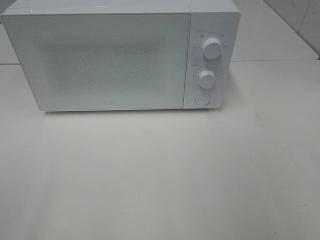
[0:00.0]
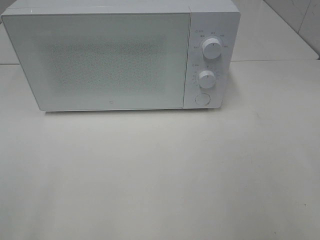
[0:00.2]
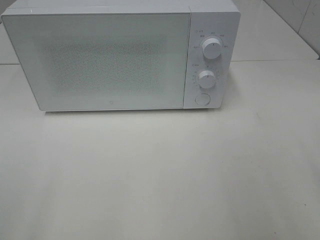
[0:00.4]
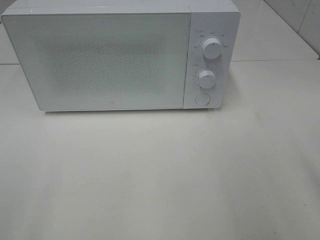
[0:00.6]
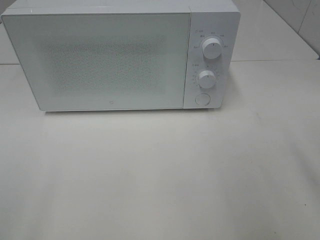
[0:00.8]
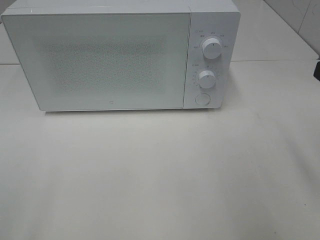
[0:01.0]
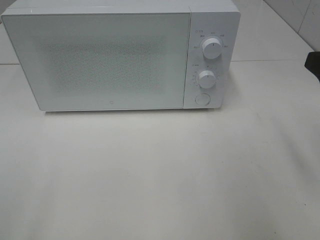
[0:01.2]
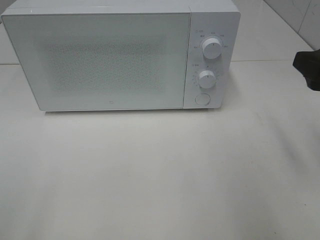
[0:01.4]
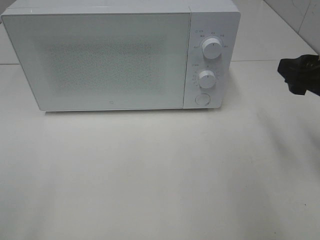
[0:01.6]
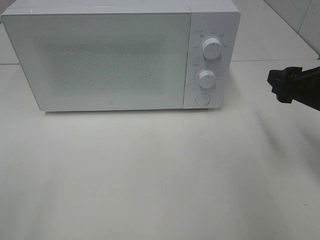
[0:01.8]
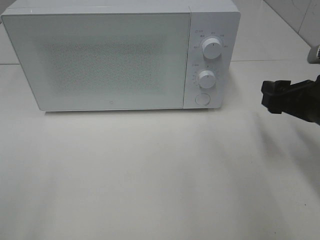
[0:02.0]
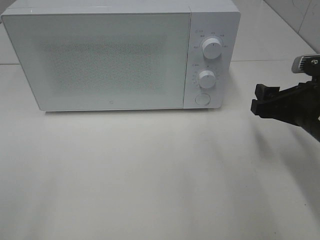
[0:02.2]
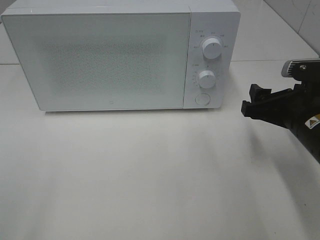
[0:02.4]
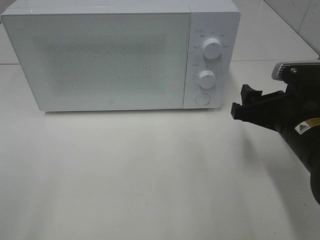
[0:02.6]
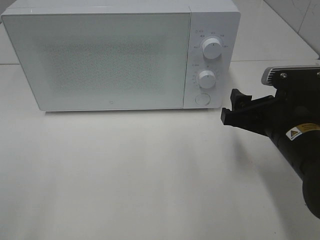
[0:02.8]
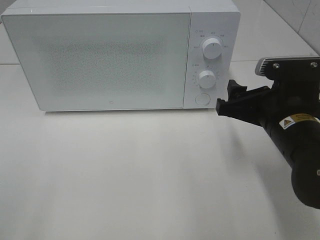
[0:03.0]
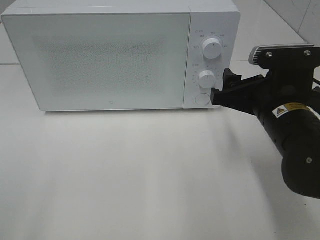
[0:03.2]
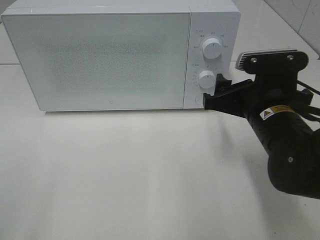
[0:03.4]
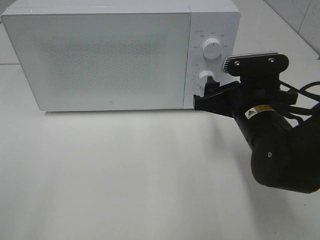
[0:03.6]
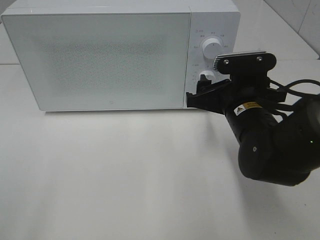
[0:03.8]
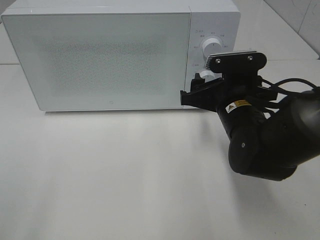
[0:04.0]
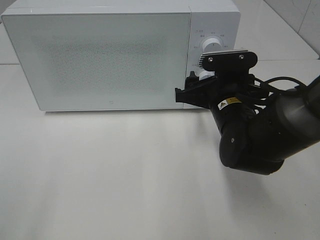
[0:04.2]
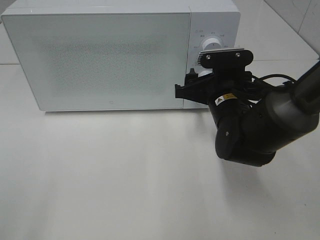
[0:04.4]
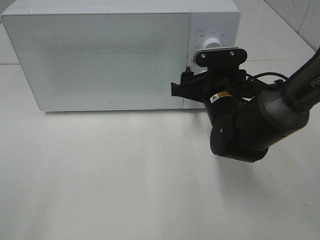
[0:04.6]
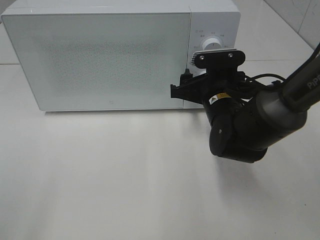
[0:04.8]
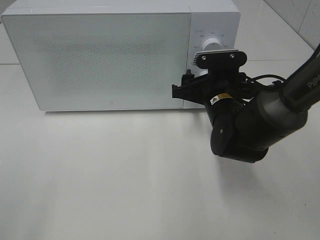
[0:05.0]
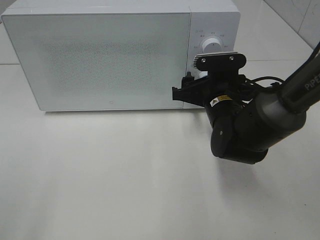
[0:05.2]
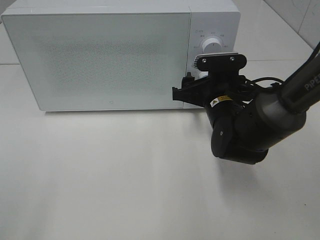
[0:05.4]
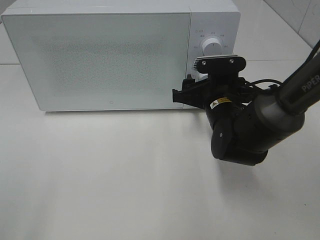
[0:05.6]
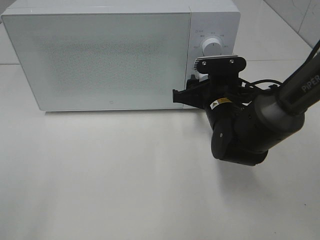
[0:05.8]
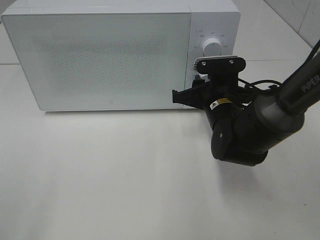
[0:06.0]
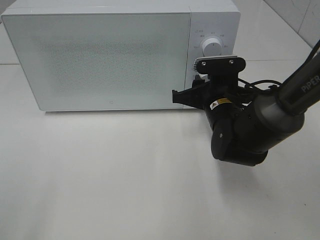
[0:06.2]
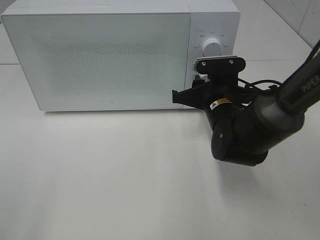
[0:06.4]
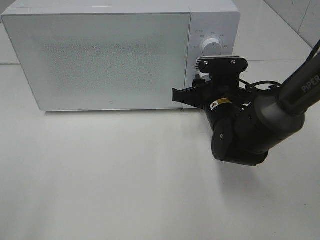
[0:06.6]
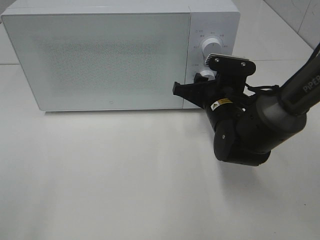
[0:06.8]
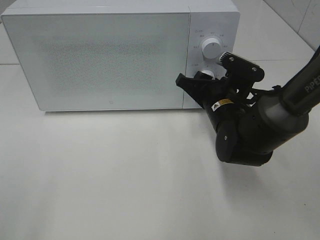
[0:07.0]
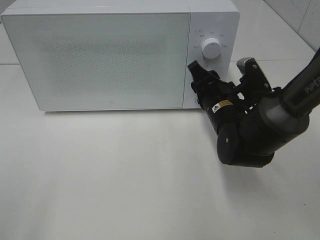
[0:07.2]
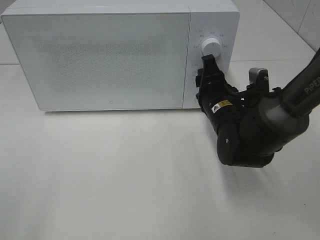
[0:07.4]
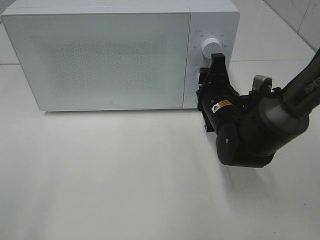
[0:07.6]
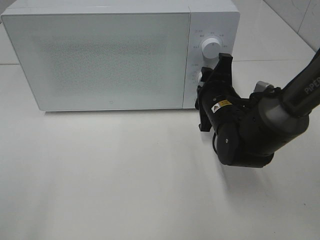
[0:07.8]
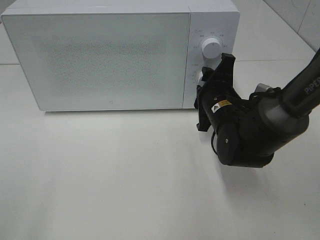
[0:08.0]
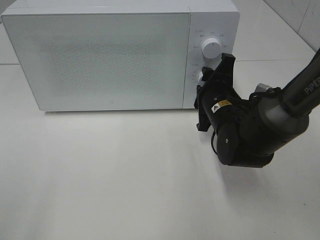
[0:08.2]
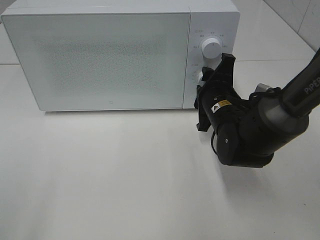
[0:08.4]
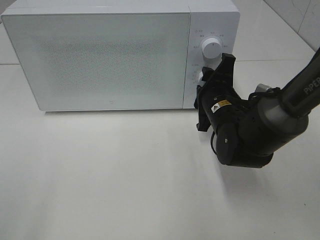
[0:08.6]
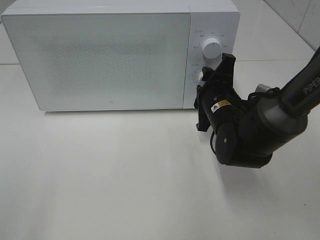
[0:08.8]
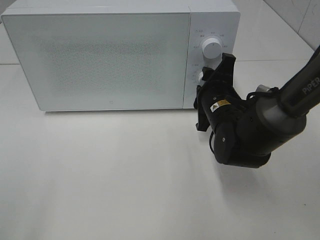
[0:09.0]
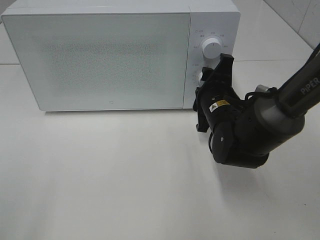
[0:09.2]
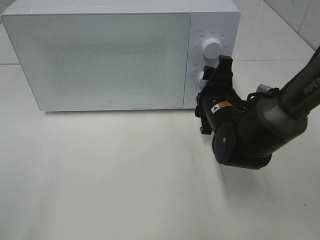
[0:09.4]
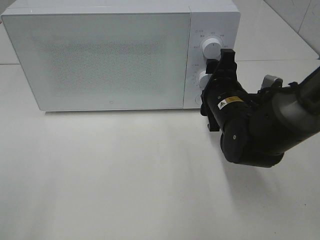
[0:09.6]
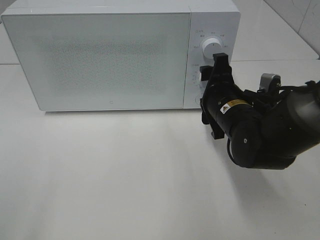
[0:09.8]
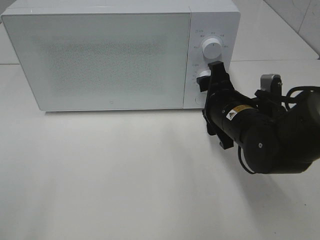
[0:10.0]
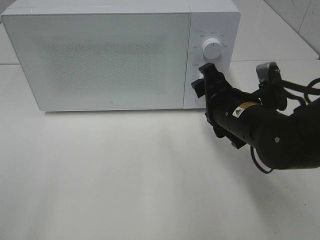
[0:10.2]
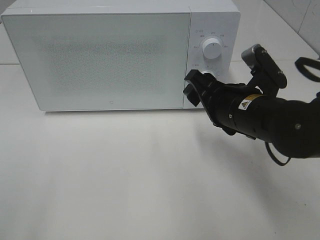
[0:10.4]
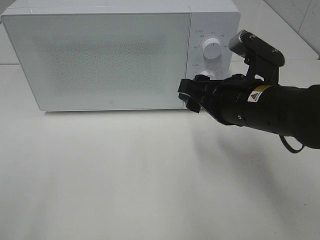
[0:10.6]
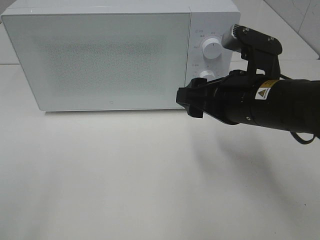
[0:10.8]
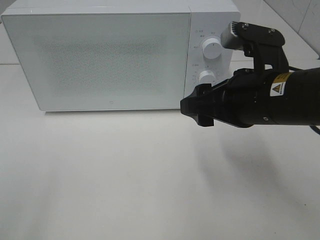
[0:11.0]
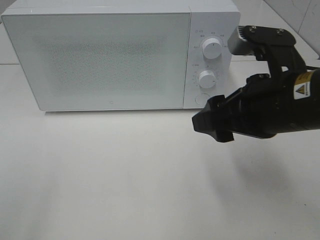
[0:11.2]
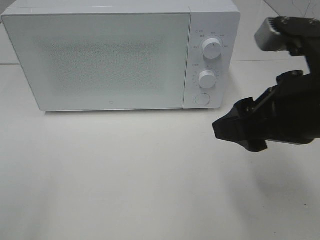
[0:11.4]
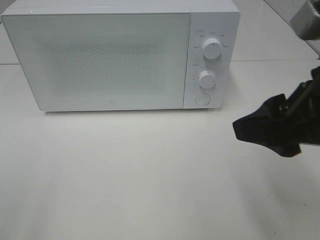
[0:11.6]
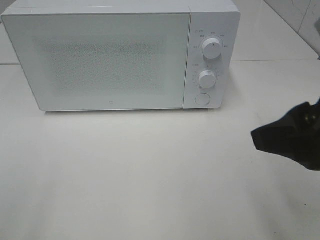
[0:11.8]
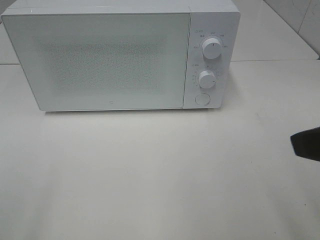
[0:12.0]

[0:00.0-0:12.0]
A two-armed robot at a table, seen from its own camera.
Task of the whole recording: Heat the burger.
Step, 0:00.0 to 0:09.4: Right hand: twist timer button.
0:00.0 to 0:01.6: The right gripper shifts approximately 20 cm forward and downward.
0:01.6 to 0:03.0: The right gripper travels to the left and downward by about 10 cm.
0:03.0 to 0:04.4: The right gripper travels forward and to the left by some 10 cm.
0:04.4 to 0:06.0: The right gripper closes up.
0:07.6 to 0:09.0: The grippers move only a little.
0:09.0 to 0:10.4: The right gripper travels backward and upward by approximately 10 cm.
0:10.4 to 0:12.0: The right gripper travels backward, upward and to the right by approximately 20 cm.

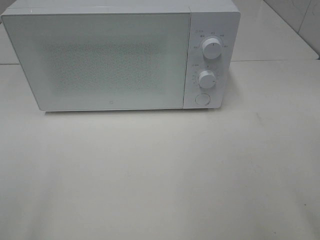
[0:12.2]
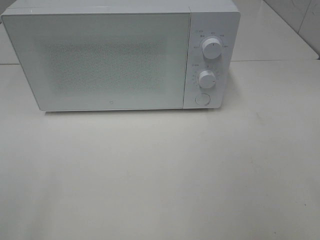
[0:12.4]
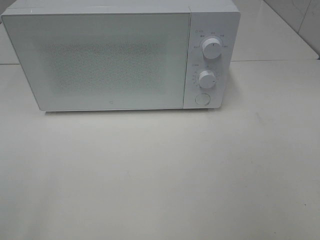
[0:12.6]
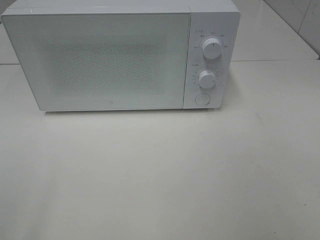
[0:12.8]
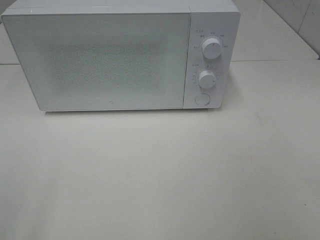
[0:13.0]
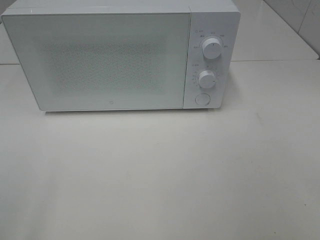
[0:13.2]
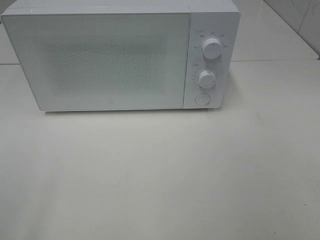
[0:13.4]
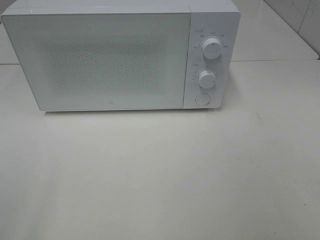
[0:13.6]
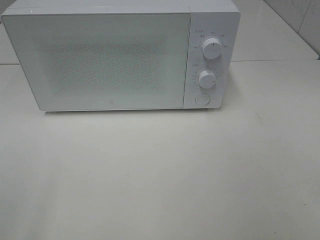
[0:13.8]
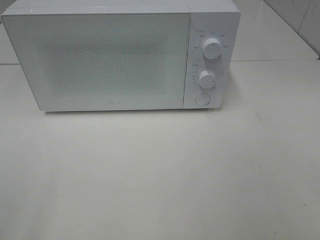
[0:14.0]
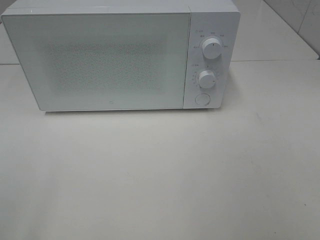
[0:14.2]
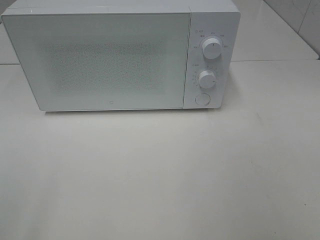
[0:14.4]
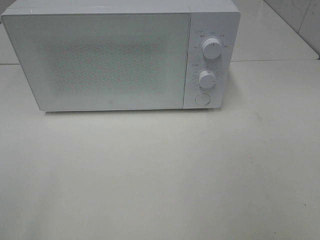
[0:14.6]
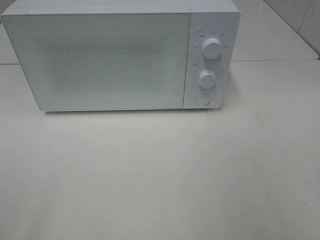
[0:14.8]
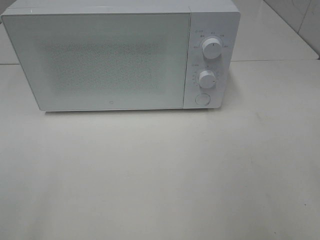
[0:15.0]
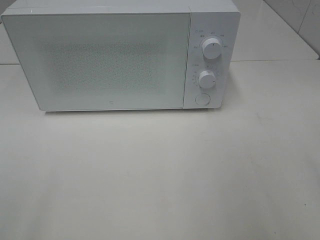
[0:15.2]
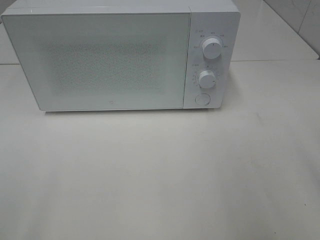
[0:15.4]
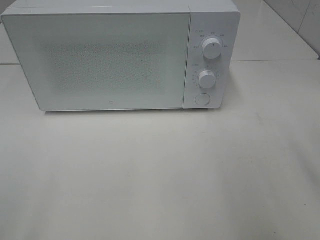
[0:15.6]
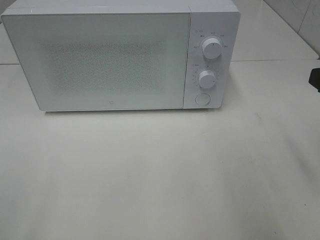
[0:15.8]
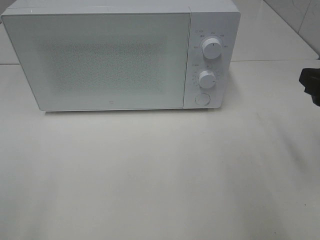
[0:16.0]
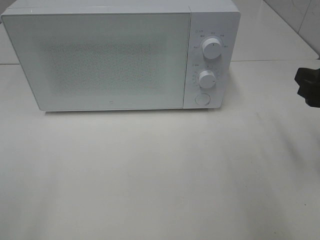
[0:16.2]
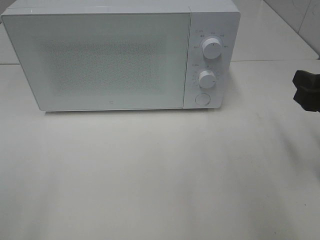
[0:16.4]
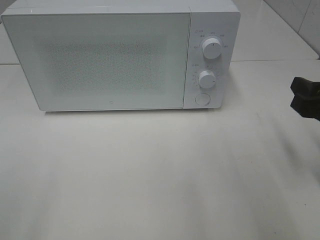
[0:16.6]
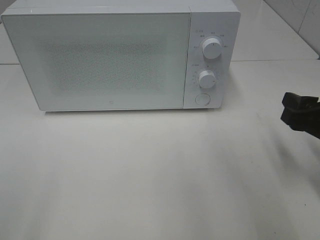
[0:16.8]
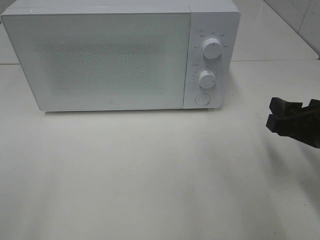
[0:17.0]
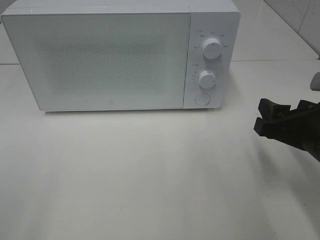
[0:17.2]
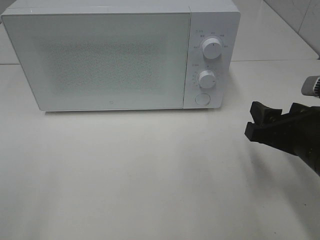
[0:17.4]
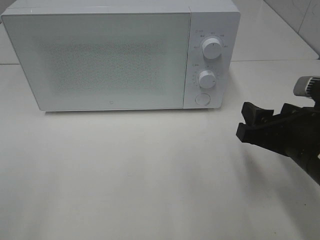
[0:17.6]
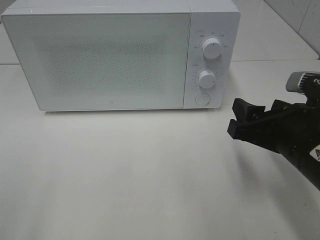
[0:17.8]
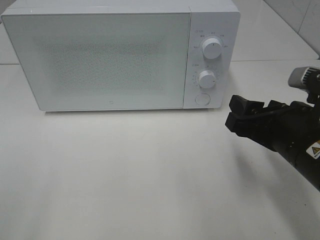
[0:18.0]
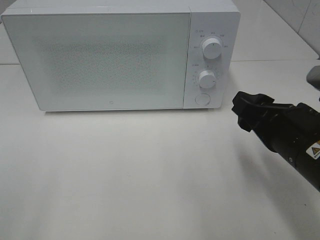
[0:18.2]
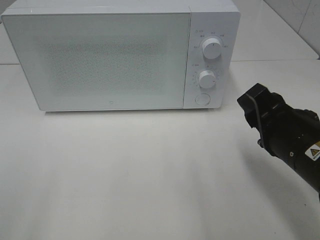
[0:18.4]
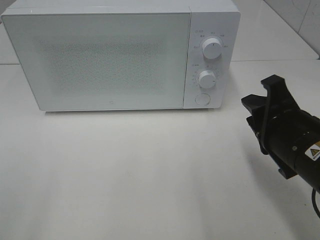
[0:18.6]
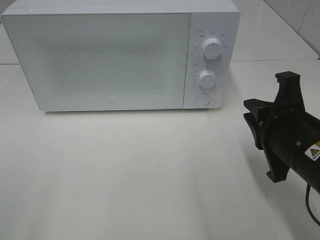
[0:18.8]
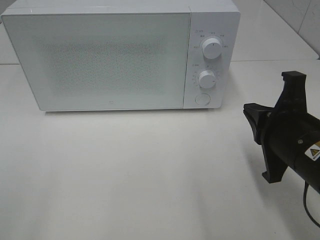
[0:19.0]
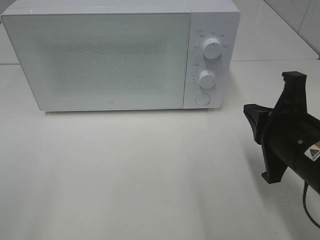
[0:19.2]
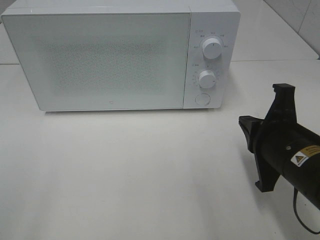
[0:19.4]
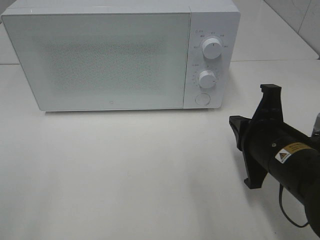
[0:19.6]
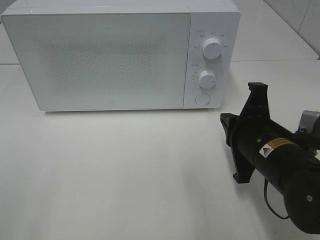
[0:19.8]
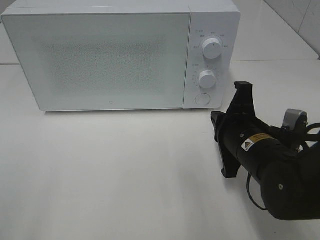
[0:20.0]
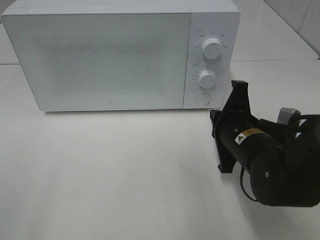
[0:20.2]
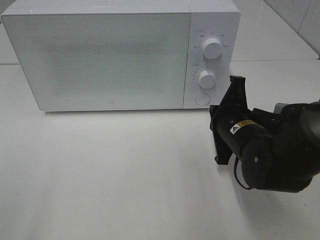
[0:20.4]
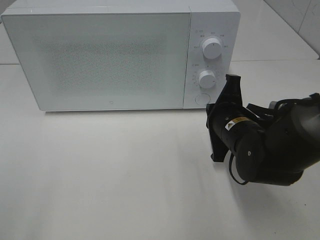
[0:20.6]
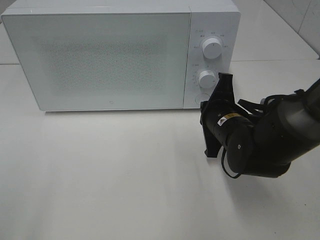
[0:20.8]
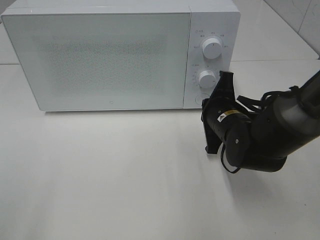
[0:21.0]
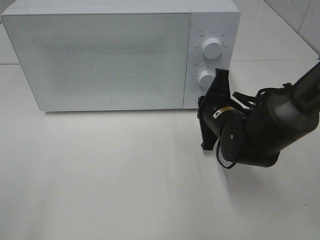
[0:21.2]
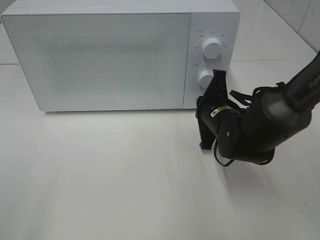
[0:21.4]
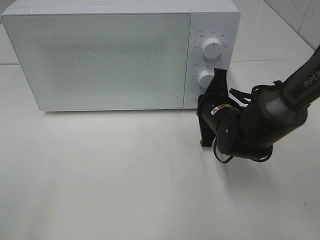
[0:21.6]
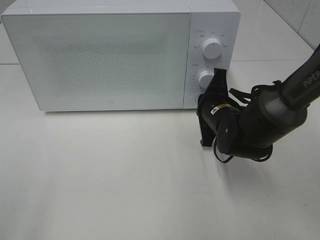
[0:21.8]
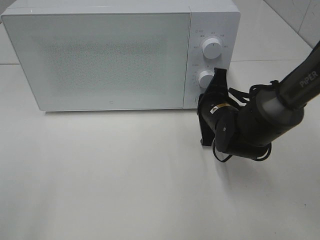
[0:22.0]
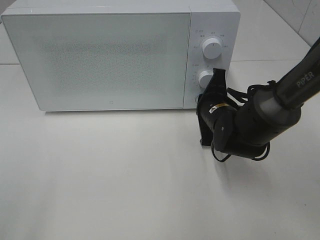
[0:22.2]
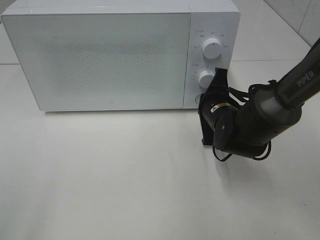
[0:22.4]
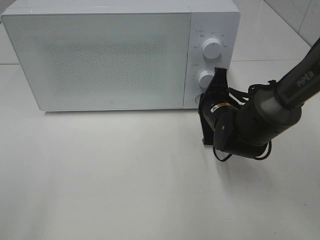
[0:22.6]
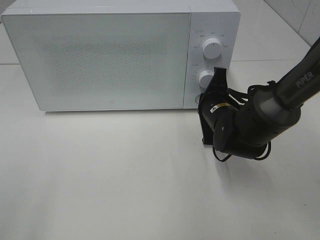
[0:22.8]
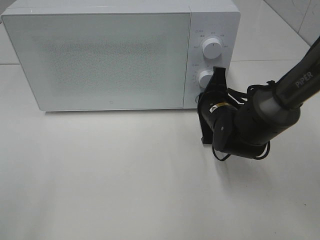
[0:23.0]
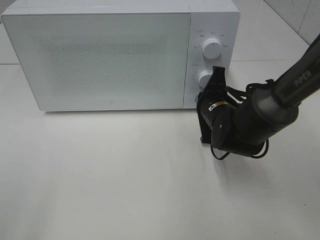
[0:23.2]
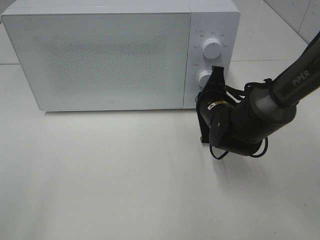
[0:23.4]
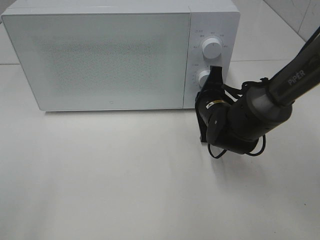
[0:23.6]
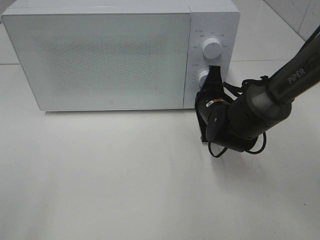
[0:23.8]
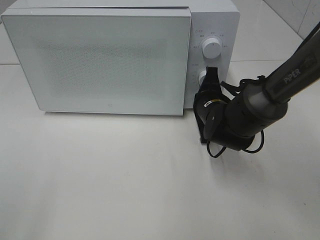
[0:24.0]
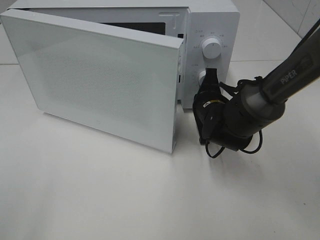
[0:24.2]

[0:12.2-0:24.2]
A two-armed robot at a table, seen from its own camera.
Task of the whole recording: Heat the burger.
0:15.2 to 0:16.6: The right gripper moves downward and forward, roughly 15 cm.
0:16.6 to 0:18.2: The right gripper travels to the left by roughly 10 cm.
0:18.2 to 0:19.8: The right gripper ends up roughly 5 cm from where it was, and closes.
0:19.8 to 0:21.2: The right gripper heads forward, covering approximately 10 cm.
0:21.2 to 0:24.2: The grippers move only a little.
